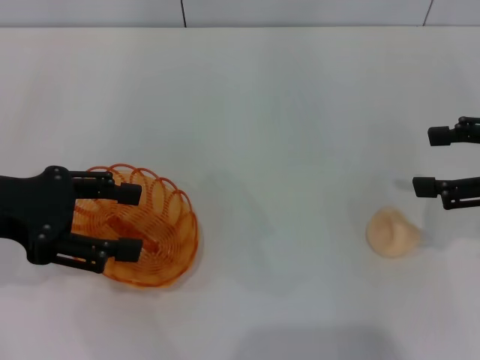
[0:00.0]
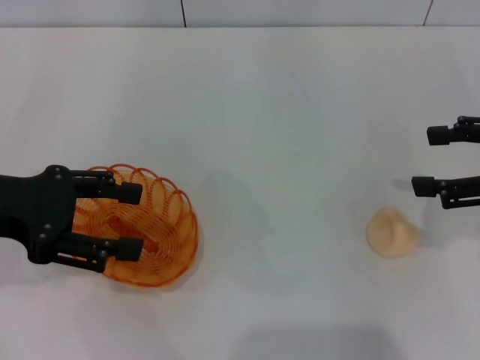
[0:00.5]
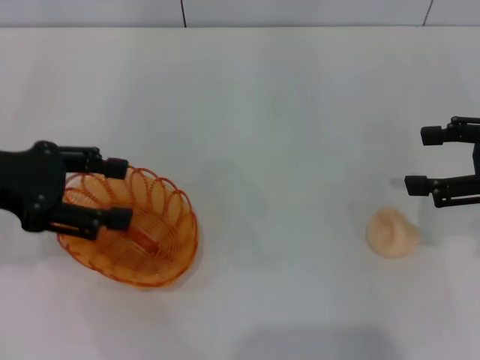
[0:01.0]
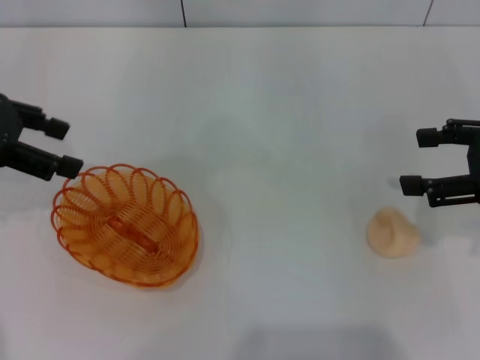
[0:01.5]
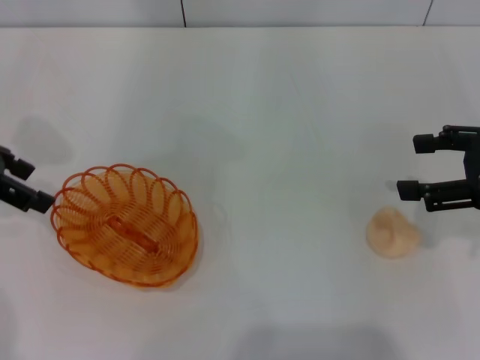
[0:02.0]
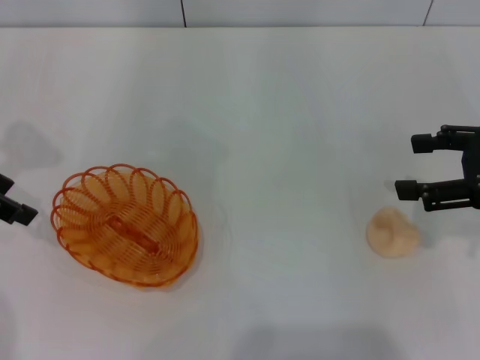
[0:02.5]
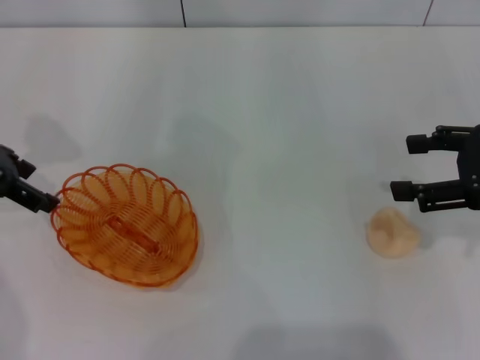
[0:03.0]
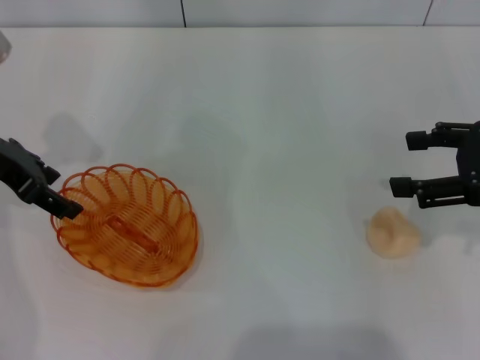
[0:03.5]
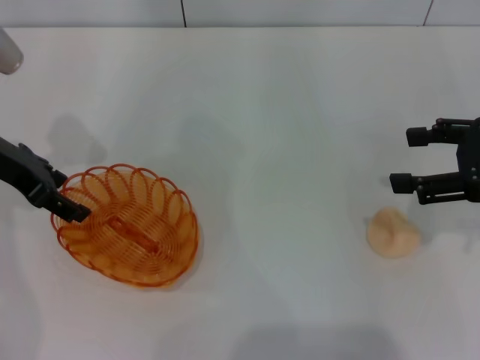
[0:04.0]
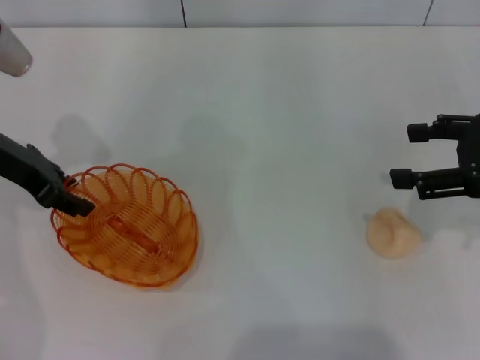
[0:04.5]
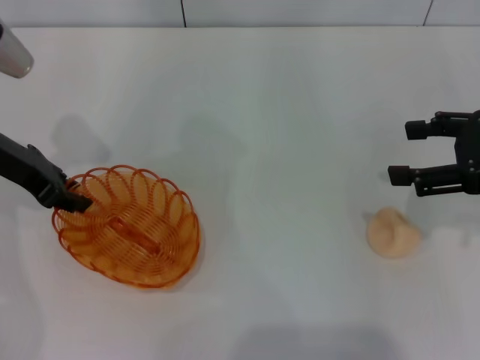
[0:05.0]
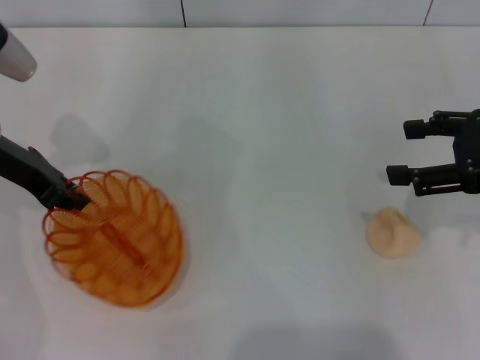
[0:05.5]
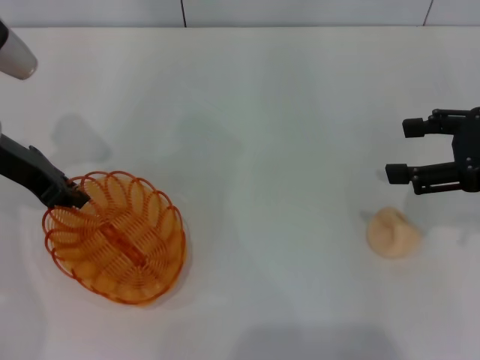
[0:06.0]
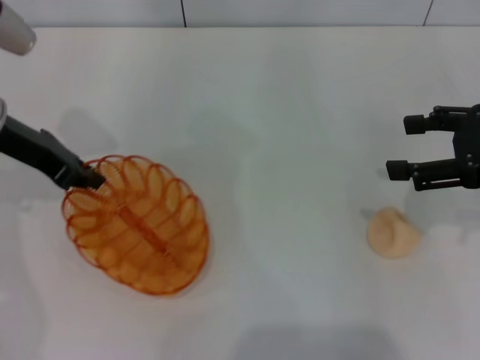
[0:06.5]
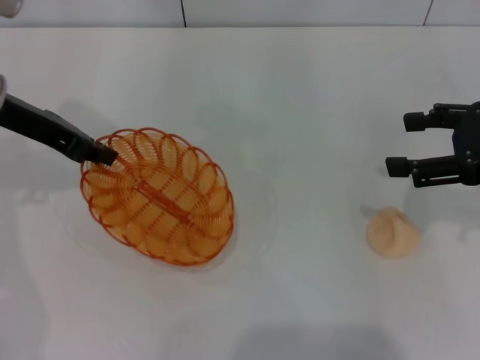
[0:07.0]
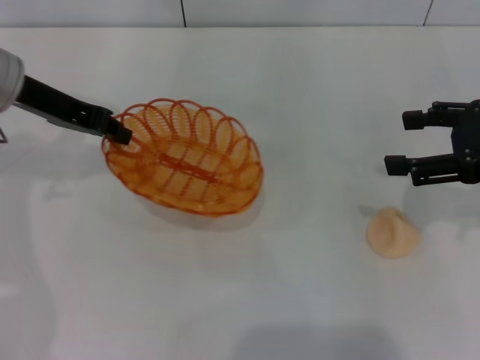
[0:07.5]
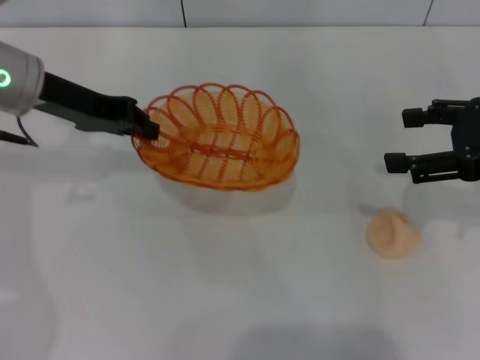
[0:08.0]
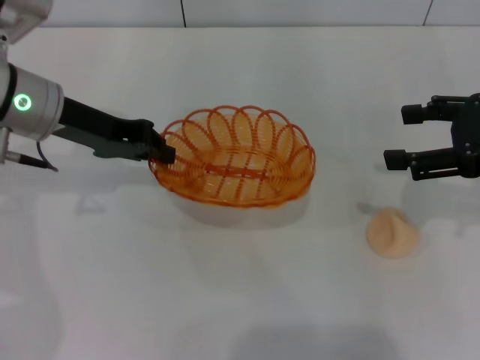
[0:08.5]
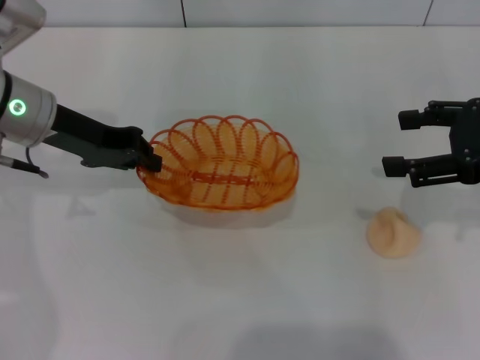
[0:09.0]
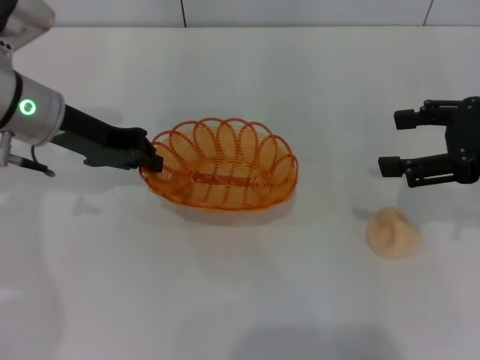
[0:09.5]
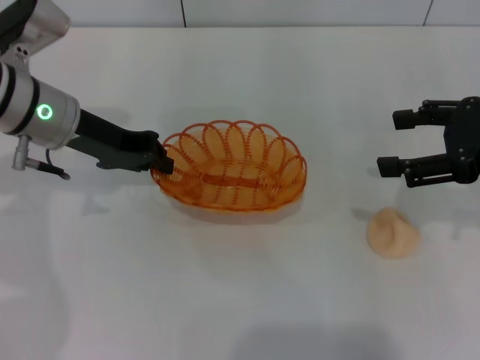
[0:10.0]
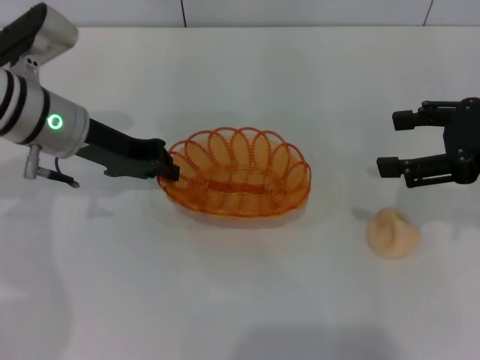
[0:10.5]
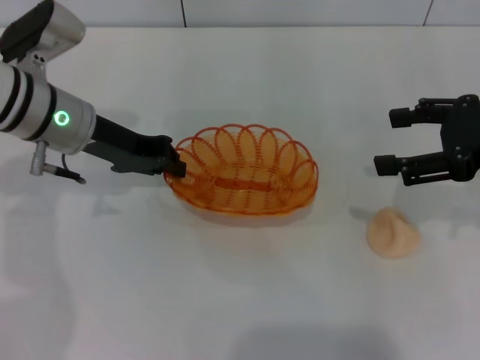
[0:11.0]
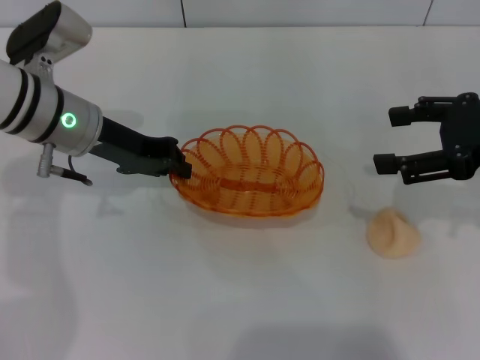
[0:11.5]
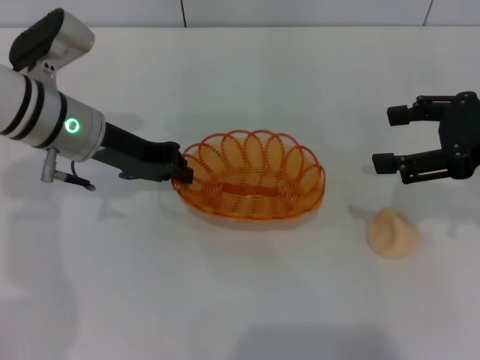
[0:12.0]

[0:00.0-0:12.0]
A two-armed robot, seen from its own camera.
Step, 0:00.0 to 0:07.0: Pick up the basket with the left gripper.
0:00.0 to 0:02.0: The left gripper is displaced forward by roughly 5 cm.
0:02.0 to 0:04.0: The left gripper heads downward, covering about 5 cm.
0:04.0 to 0:06.0: The left gripper closes its fingers.
0:06.0 to 0:08.0: The left gripper changes place by roughly 5 cm.
0:08.0 to 0:10.0: The grippers stay close to where they were, moving slightly.
0:10.0 to 0:12.0: The grippers move only a little.

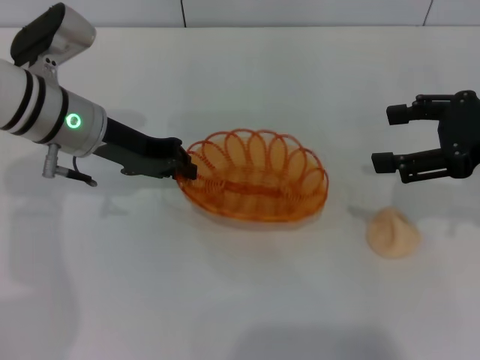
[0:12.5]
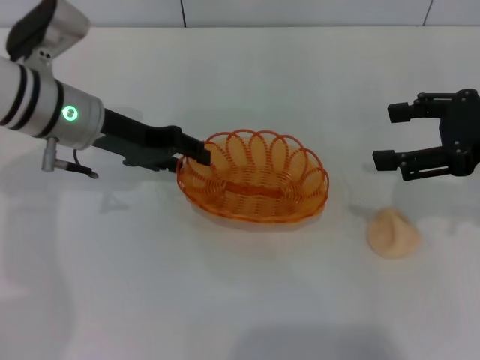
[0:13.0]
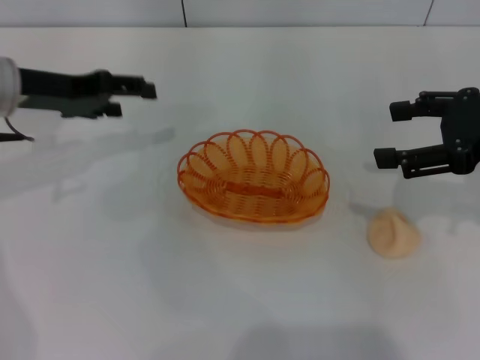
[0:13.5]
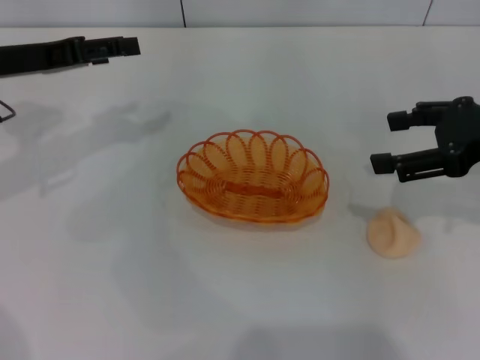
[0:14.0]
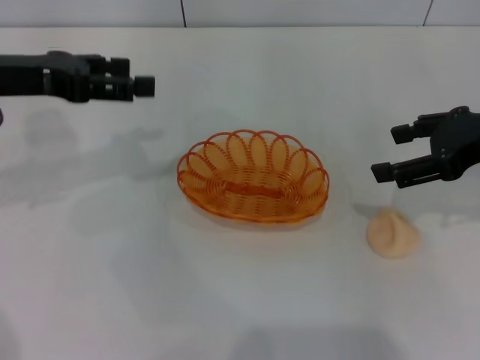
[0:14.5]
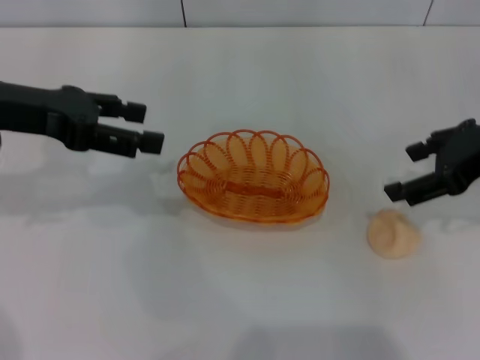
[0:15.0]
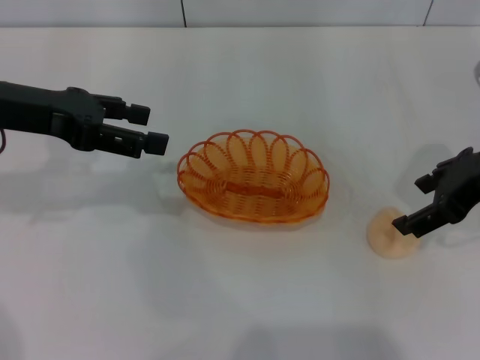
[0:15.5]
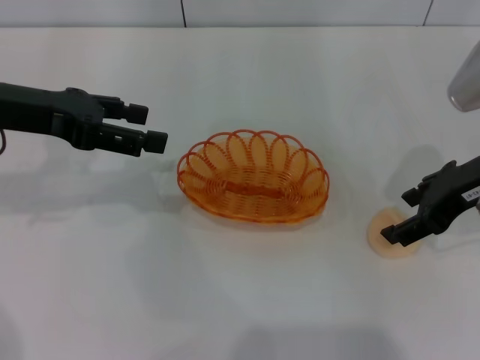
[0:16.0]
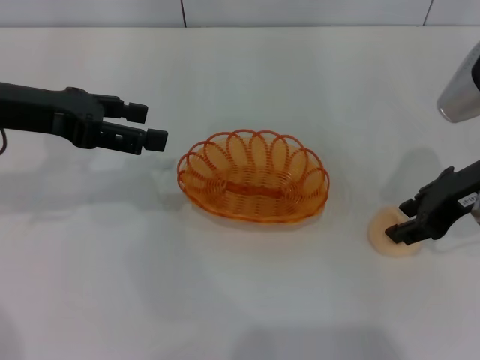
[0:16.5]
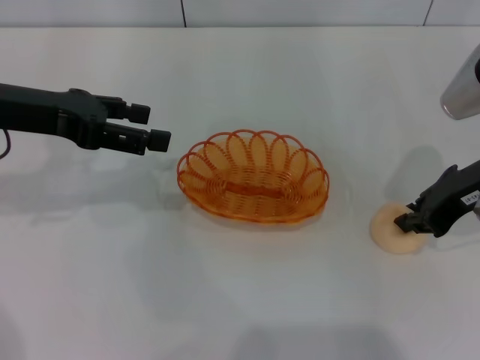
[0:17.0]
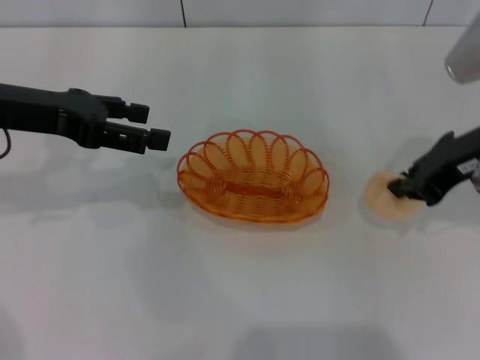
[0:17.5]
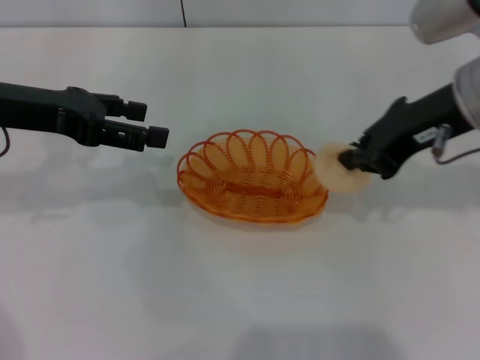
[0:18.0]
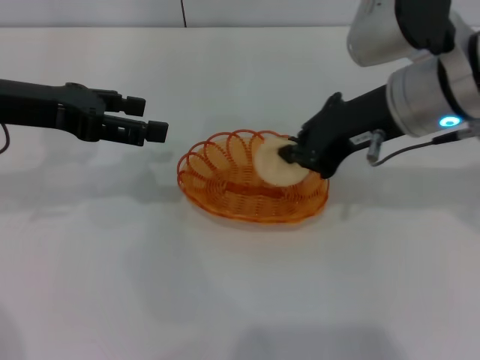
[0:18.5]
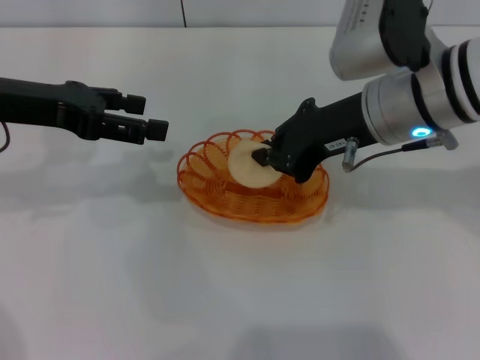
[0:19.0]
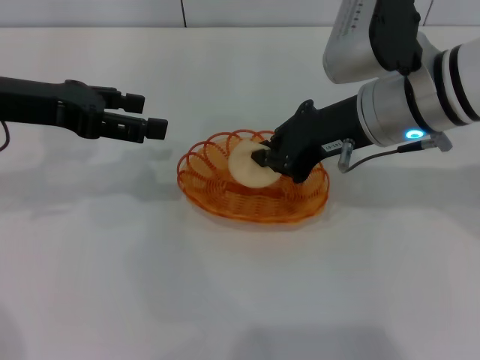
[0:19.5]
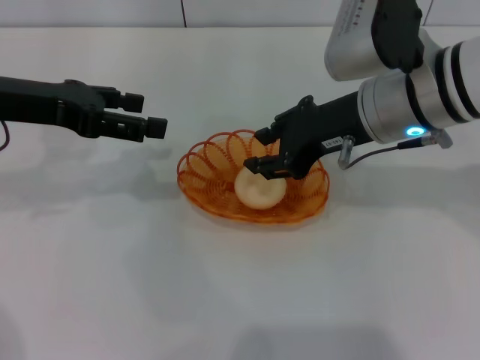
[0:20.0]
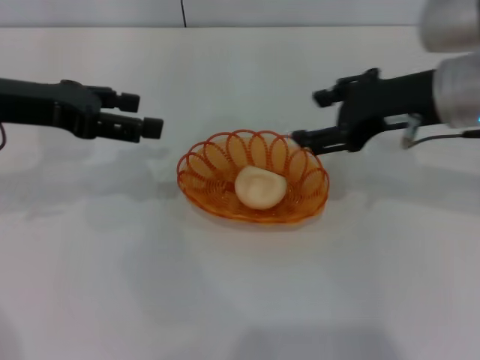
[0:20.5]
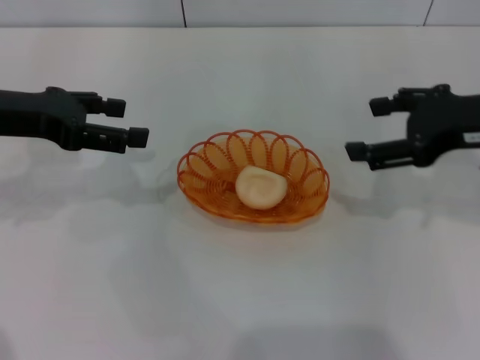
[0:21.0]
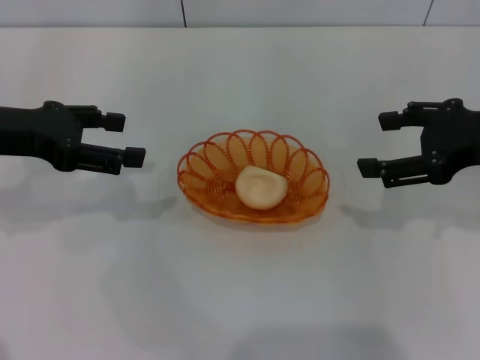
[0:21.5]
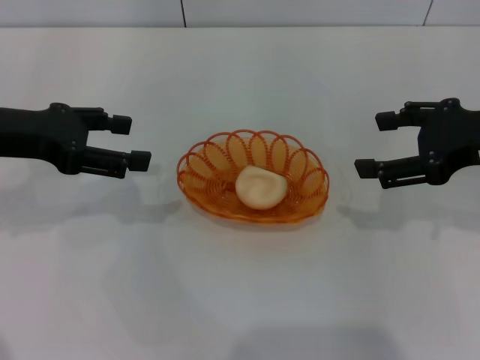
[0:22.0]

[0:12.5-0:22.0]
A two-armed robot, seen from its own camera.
Step, 0:13.5 to 0:17.5: Pick up the egg yolk pastry with the right gripper.
Step, 0:18.0 to 0:20.0: Place the egg yolk pastry into the basket with the right gripper.
0:12.5 to 0:14.5: The left gripper goes roughly 10 cm to the left and upward, and opens up.
0:14.5 to 0:16.5: The right gripper shifts by approximately 5 cm.
0:16.5 to 0:18.0: The right gripper goes some 5 cm upward, and closes up.
0:18.0 to 0:20.0: The right gripper heads to the left, covering roughly 5 cm.
0:20.0 to 0:22.0: The right gripper travels to the right by some 15 cm, and opens up.
